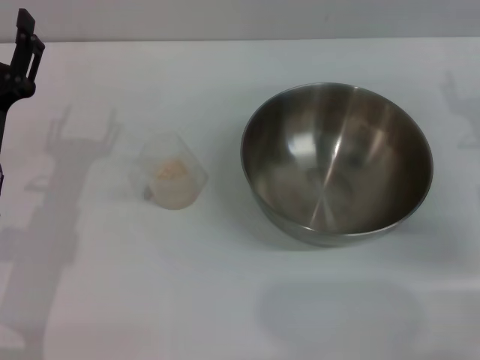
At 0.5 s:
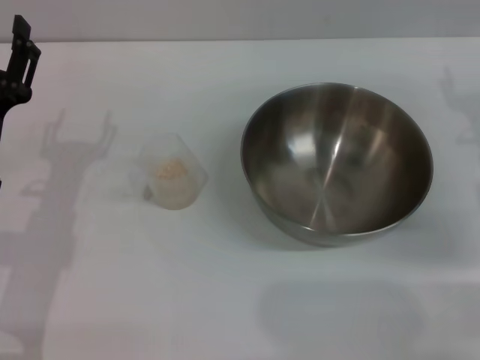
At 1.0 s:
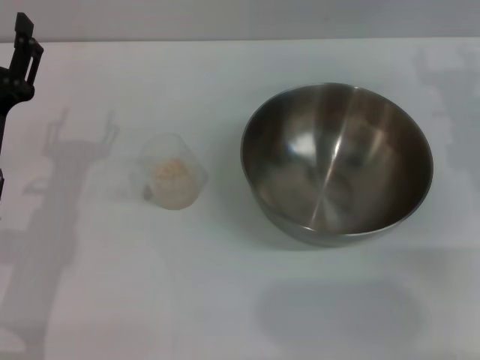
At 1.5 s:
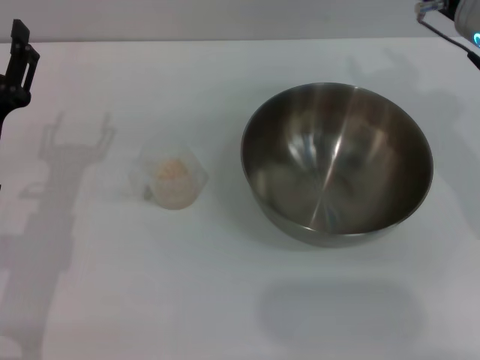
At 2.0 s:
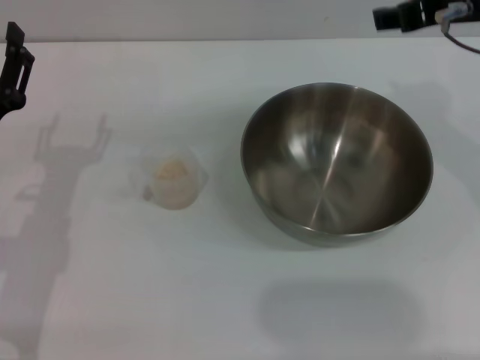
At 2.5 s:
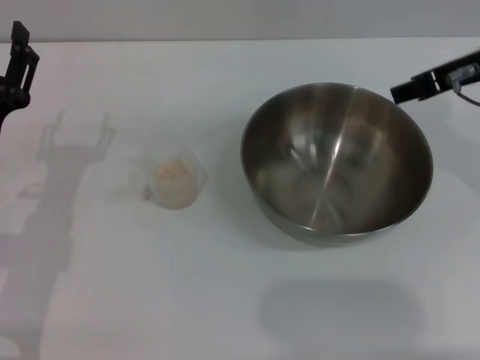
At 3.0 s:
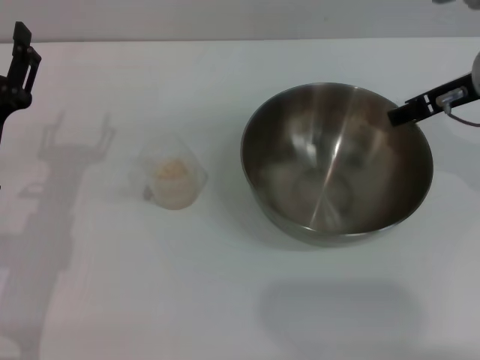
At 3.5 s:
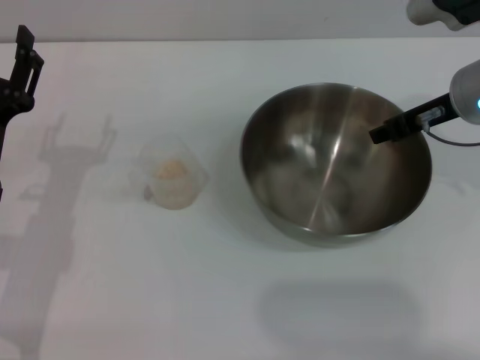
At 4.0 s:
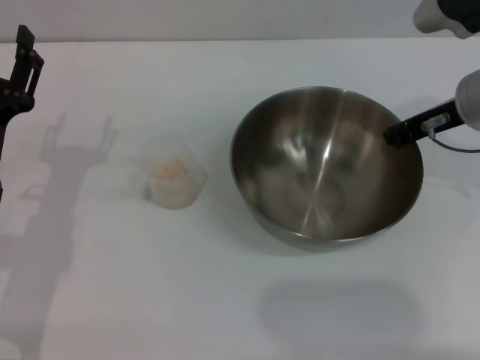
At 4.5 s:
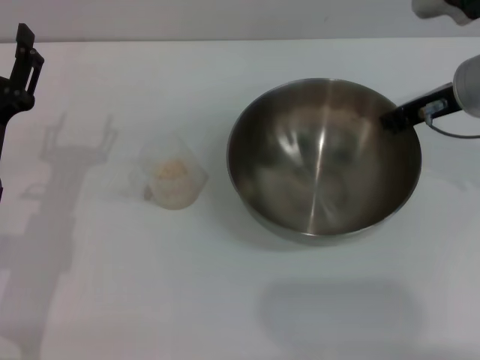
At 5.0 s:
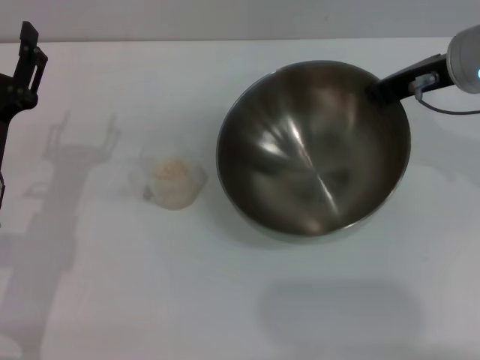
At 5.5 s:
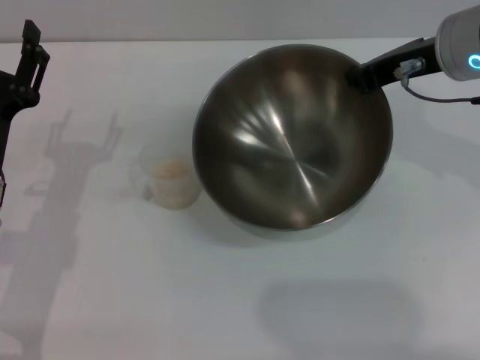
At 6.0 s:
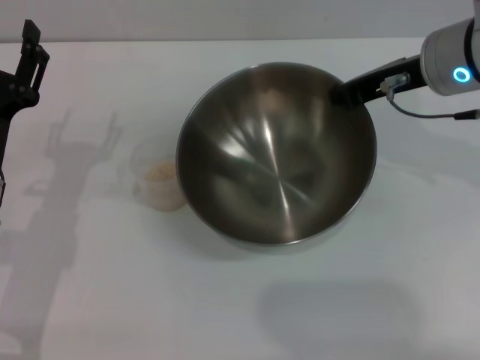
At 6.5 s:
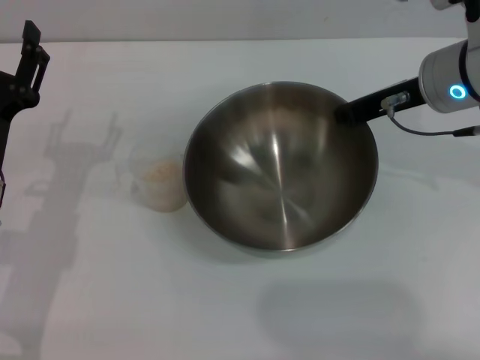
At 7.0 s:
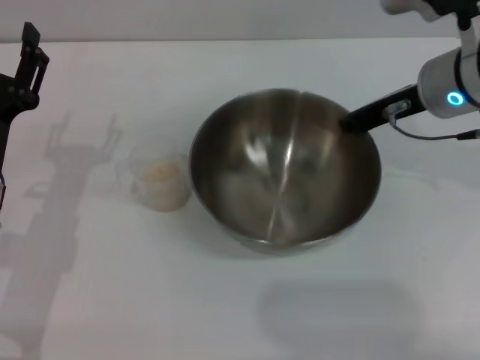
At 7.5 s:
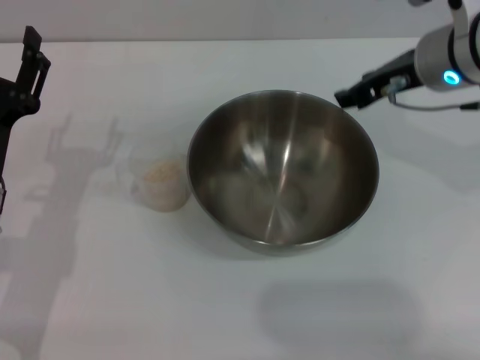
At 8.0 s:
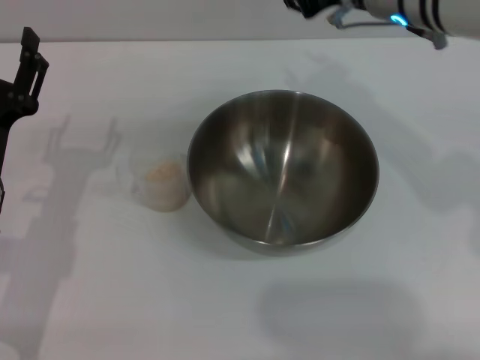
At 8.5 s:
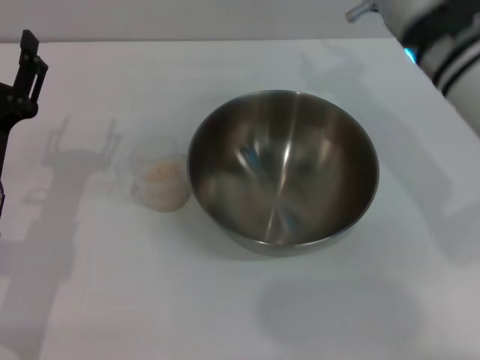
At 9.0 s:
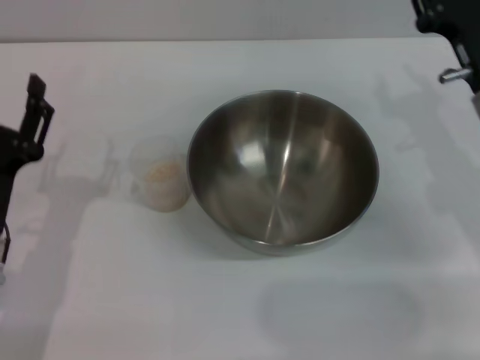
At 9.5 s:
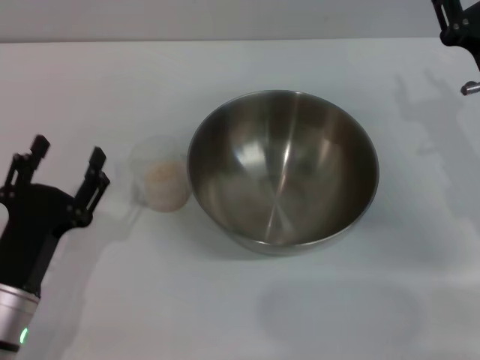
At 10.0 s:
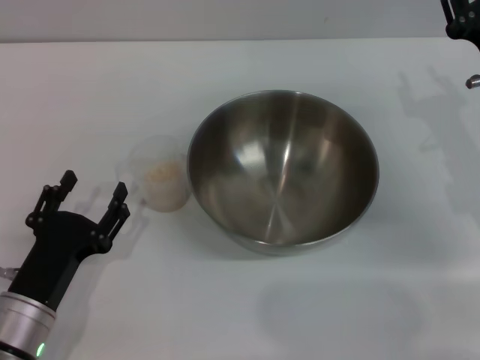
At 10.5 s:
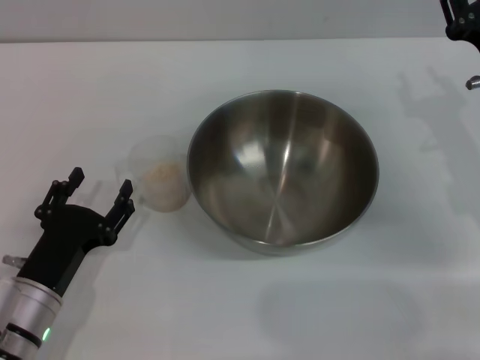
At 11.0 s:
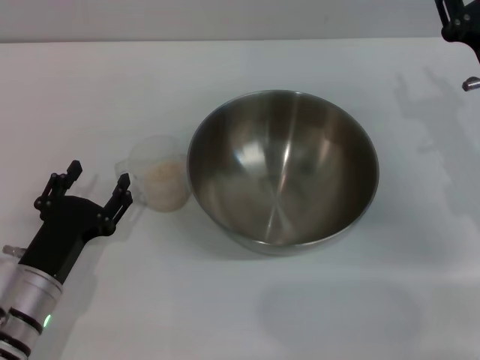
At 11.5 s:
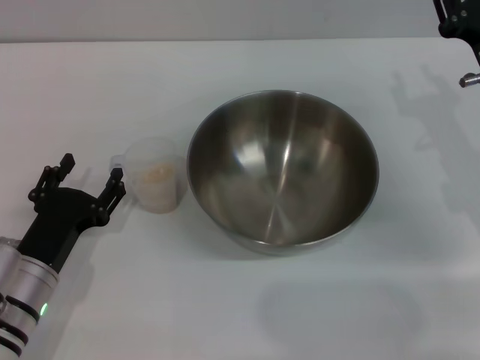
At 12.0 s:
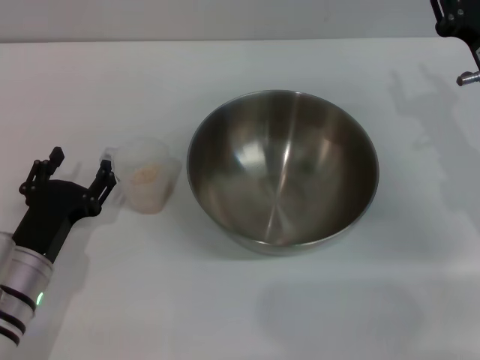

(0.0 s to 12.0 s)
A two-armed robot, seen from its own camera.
Task of the whole recording: Place the bowl in the middle of the table with one hand and pour the rice from the grain cup into it with the other hand.
Step, 0.0 s - 4.5 s: Pick up the bowl with the right gripper.
Step, 5.0 s - 7.5 s: Place the bowl in the center of view with the right gripper.
0.0 s - 2.0 s: The right gripper goes about 20 cm upward and to the left.
2.0 s - 4.0 s: The right gripper is displaced downward by about 10 cm, and closes its fingers.
4.0 s - 6.0 s: The right gripper closes its fingers.
6.0 s - 8.0 s: The right gripper heads to the left, covering roughly 5 cm, and opens its fingers.
8.0 s - 10.0 s: The left gripper goes about 10 cm backward and downward, while the right gripper is displaced downward, to the right and backward by approximately 20 cm.
10.0 s - 12.0 s: There are only small adjustments of the grippers.

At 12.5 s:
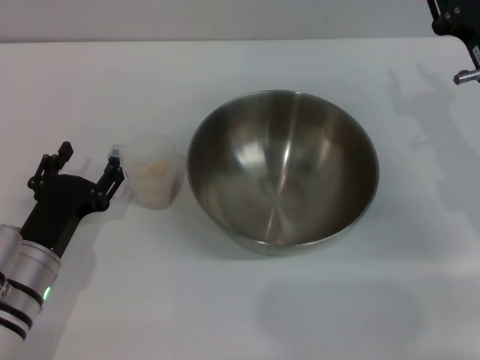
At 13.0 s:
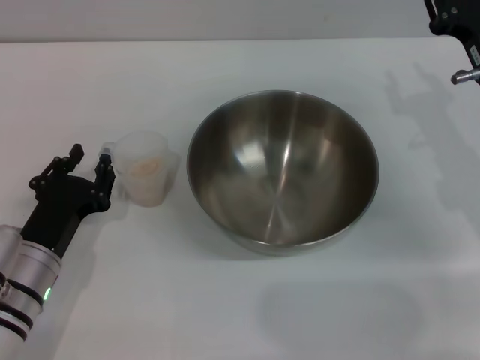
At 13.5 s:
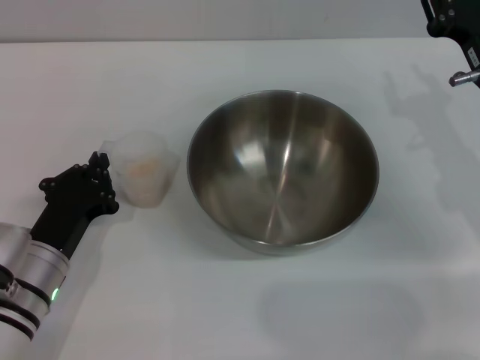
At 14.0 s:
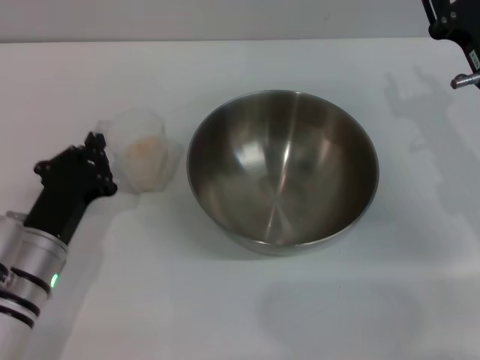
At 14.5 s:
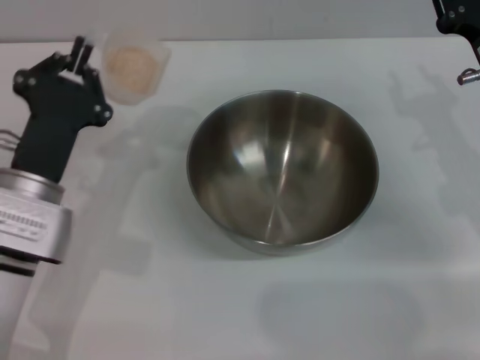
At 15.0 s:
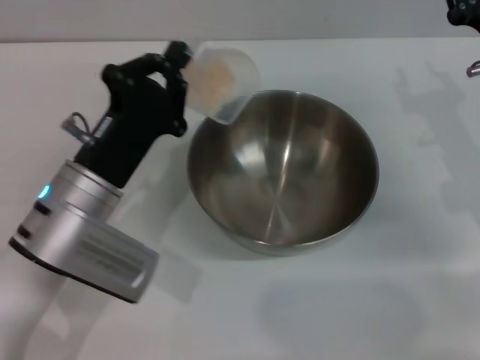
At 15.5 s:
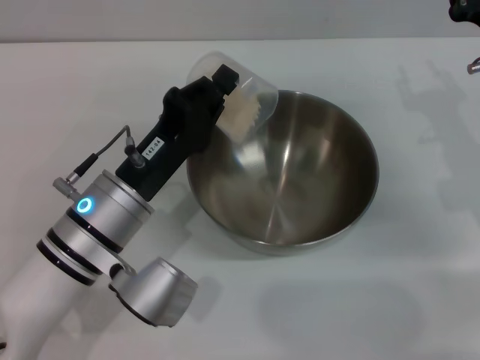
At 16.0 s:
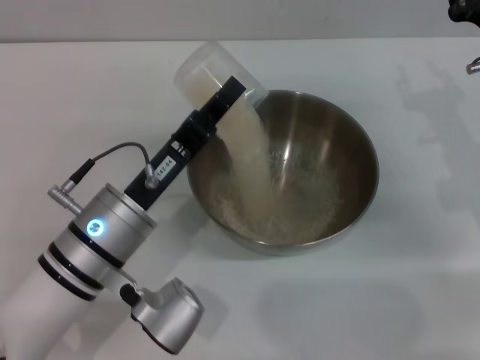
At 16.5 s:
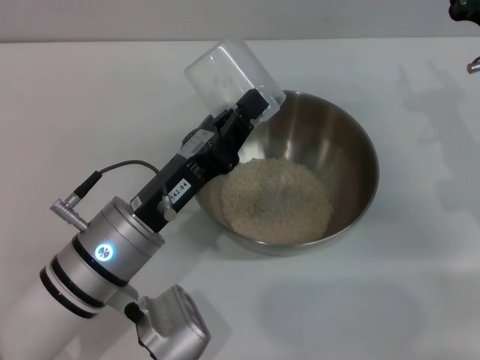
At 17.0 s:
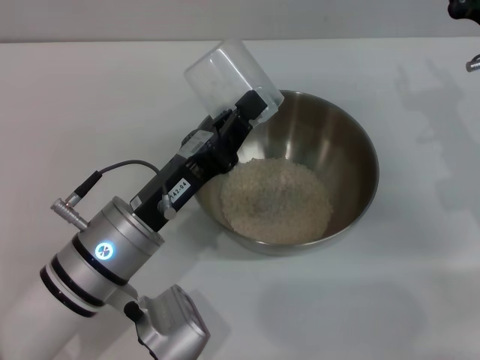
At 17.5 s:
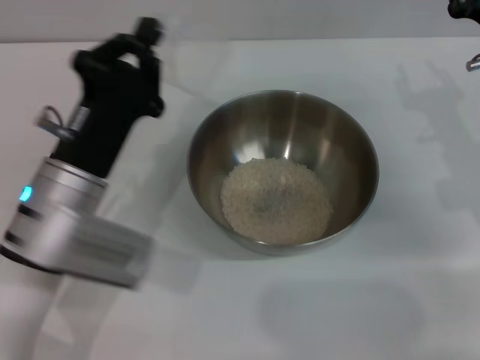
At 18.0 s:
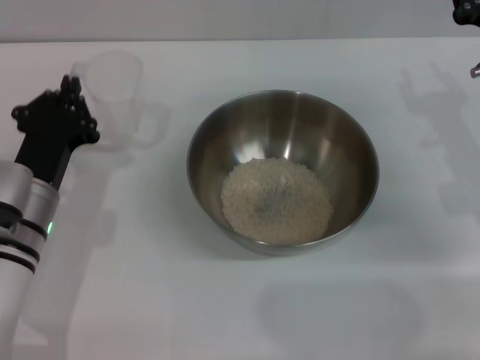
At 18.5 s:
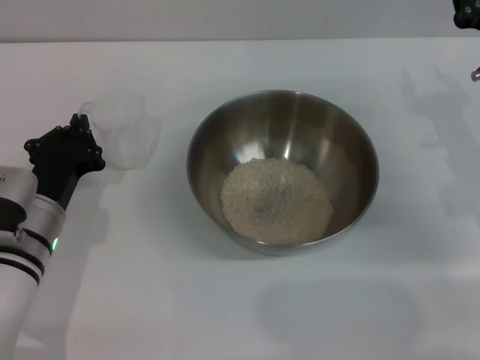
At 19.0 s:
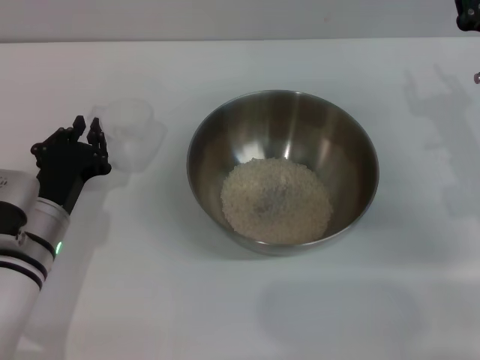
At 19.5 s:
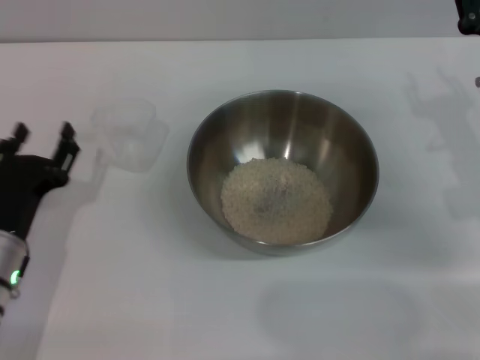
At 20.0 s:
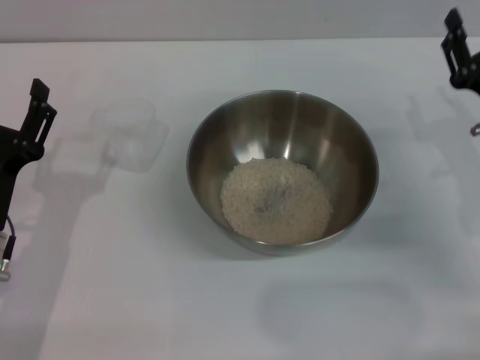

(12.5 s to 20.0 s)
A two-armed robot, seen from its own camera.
Task of the whole recording: Place the bowl in the middle of the table with one hand and pour the rice from the grain cup into it with the other hand.
Step, 14.5 s - 16.5 s: Pour the rice from the cup into the bowl with the left gripper.
Step, 17.0 s - 19.0 s: Place the cup on the table with the left gripper.
12.5 s - 14.5 s: The left gripper moves upward, some 5 cm, and closes its fingers.
14.5 s - 16.5 s: The left gripper travels to the right by about 5 cm.
16.5 s - 18.0 s: The left gripper travels to the left by some 10 cm.
18.0 s - 20.0 s: The left gripper heads backward, covering some 5 cm, and opens up. The right gripper shifts by about 5 cm.
